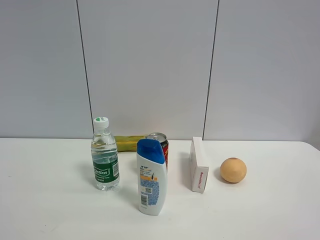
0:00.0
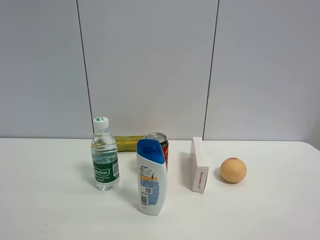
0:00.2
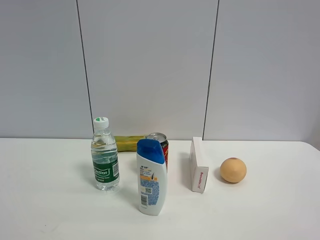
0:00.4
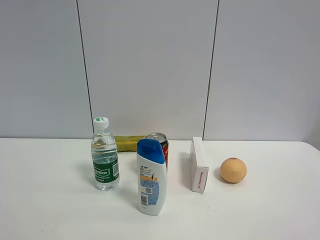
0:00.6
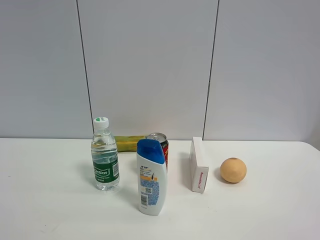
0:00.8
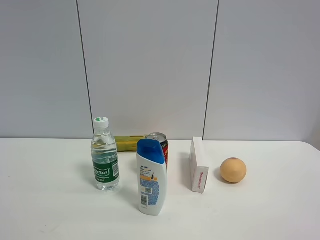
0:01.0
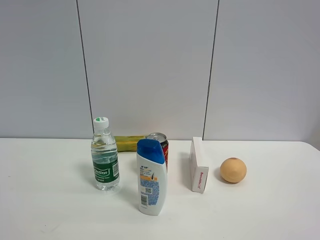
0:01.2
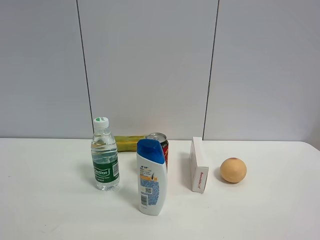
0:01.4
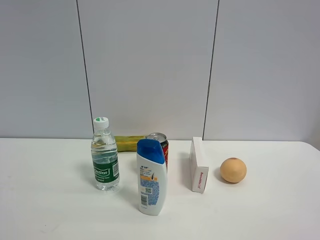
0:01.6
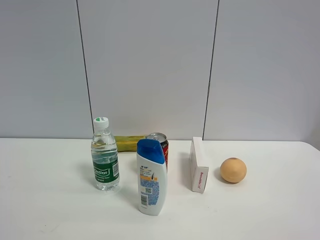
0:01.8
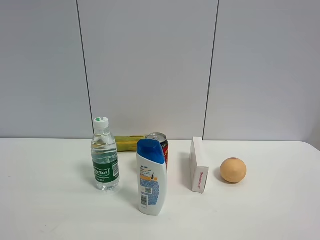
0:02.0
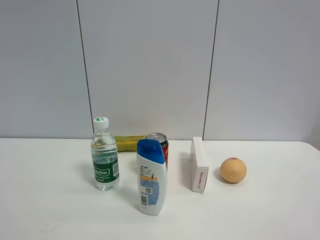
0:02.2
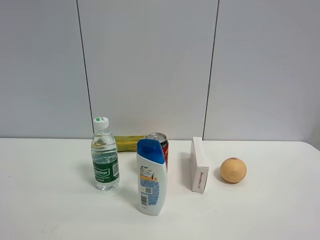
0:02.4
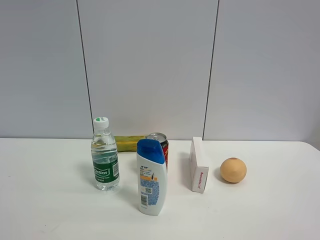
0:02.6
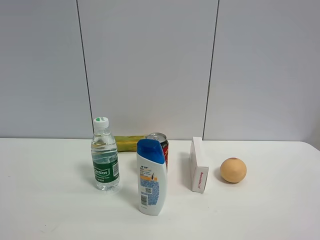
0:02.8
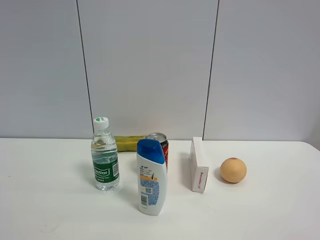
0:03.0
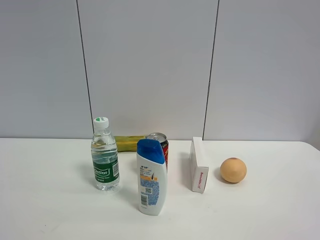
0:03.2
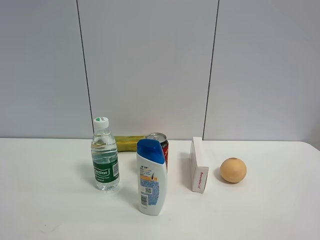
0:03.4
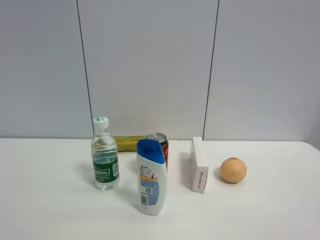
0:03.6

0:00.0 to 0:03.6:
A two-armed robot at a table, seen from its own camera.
Task of the whole recording: the gripper move the object.
0:01.8 to 0:03.6: The two grippers keep their place.

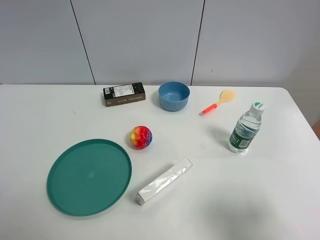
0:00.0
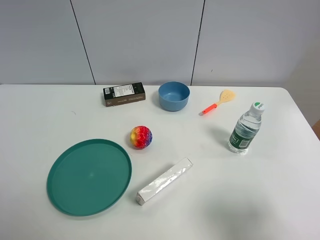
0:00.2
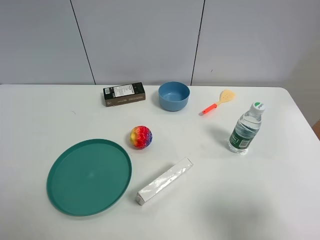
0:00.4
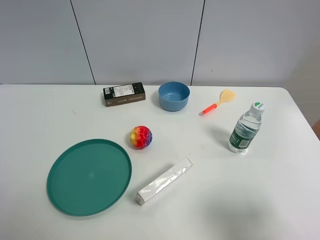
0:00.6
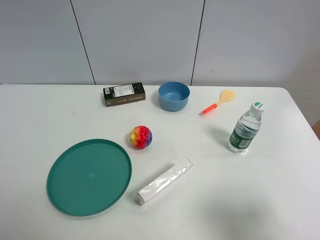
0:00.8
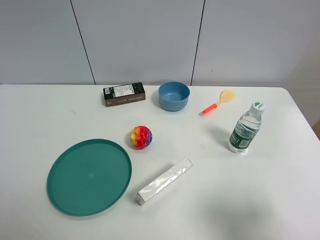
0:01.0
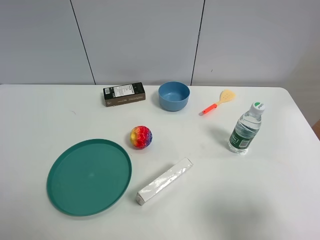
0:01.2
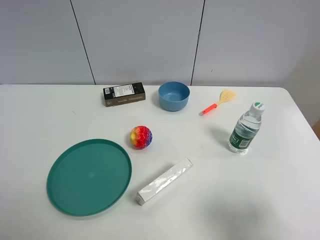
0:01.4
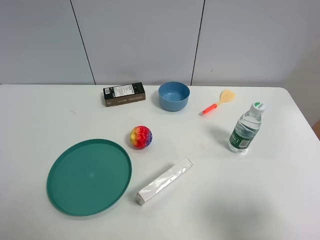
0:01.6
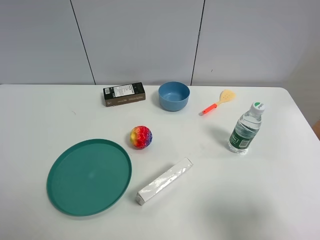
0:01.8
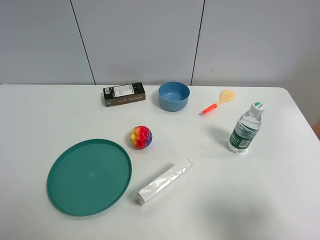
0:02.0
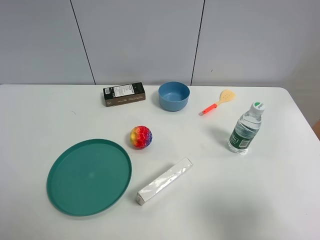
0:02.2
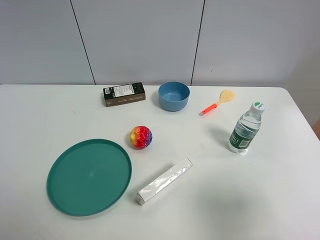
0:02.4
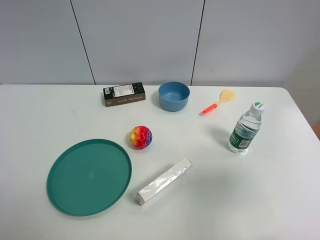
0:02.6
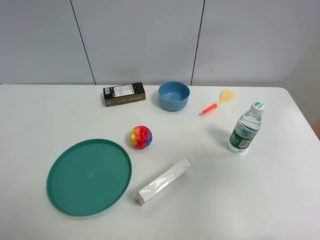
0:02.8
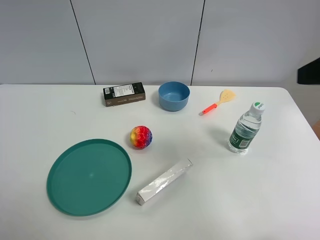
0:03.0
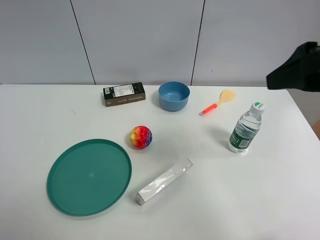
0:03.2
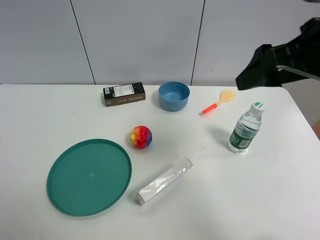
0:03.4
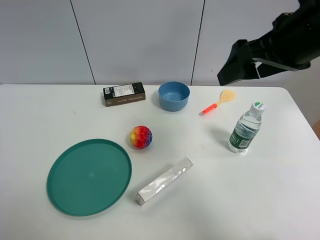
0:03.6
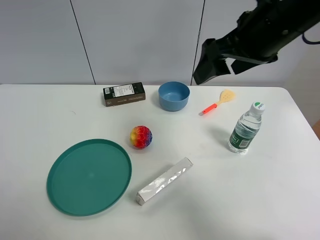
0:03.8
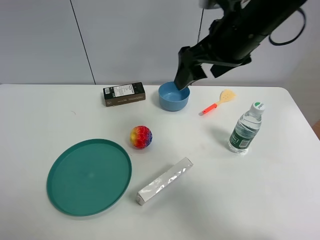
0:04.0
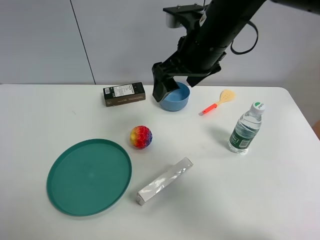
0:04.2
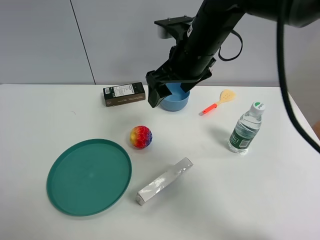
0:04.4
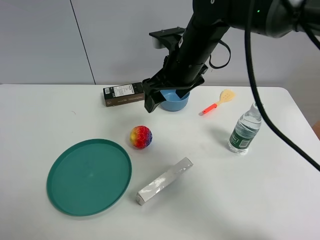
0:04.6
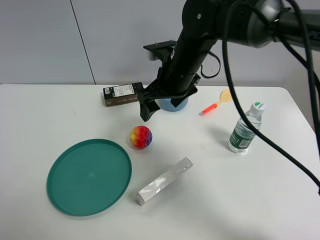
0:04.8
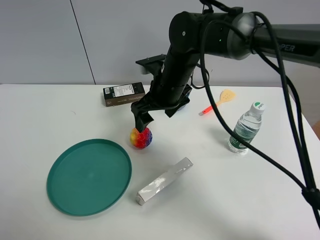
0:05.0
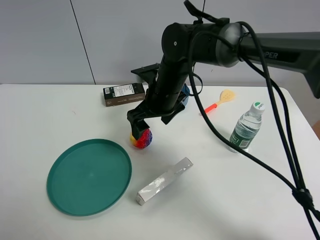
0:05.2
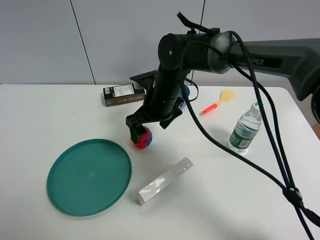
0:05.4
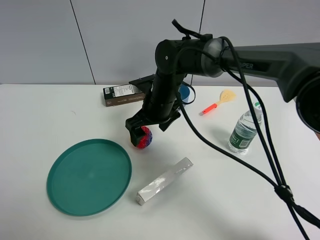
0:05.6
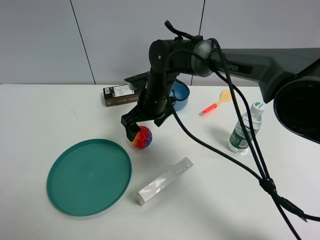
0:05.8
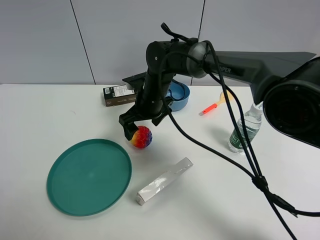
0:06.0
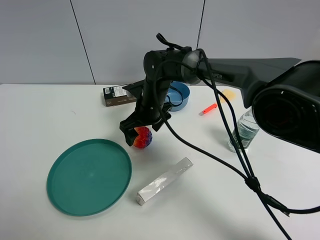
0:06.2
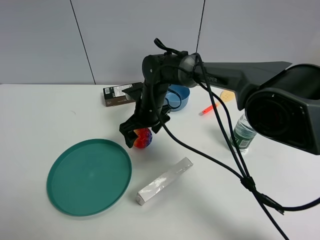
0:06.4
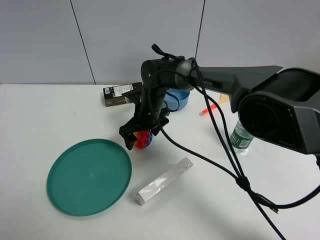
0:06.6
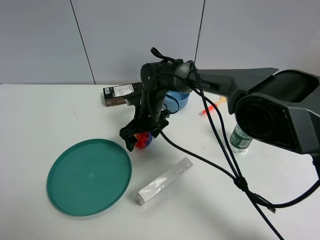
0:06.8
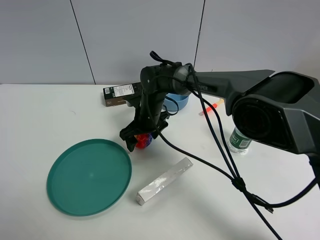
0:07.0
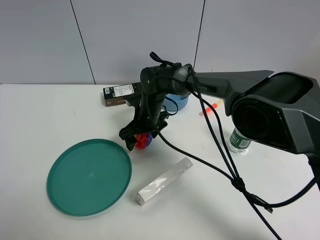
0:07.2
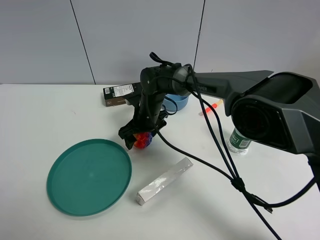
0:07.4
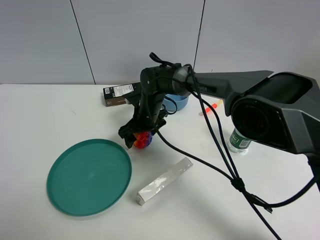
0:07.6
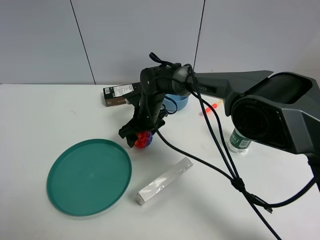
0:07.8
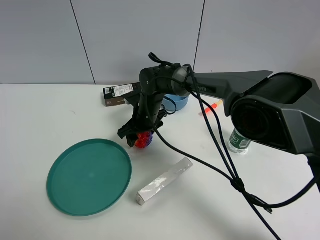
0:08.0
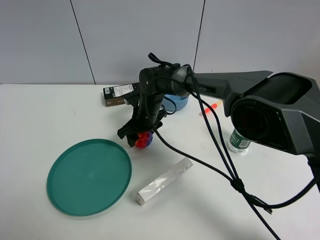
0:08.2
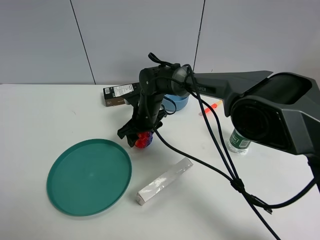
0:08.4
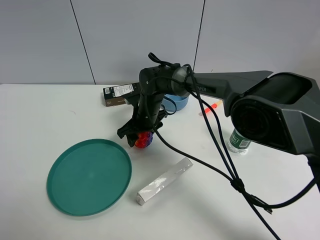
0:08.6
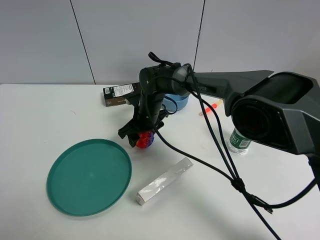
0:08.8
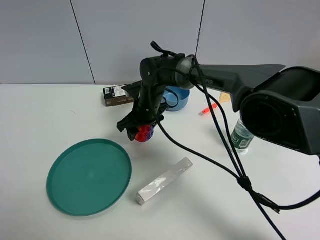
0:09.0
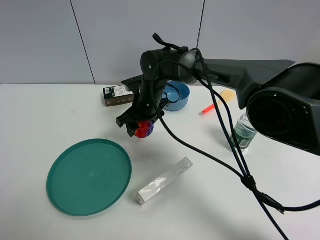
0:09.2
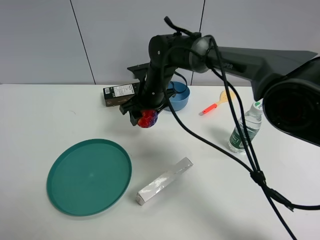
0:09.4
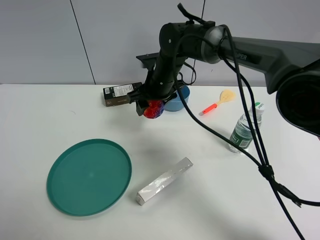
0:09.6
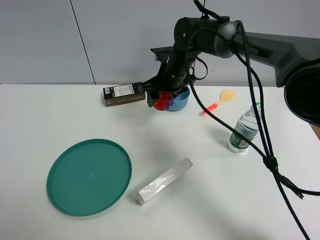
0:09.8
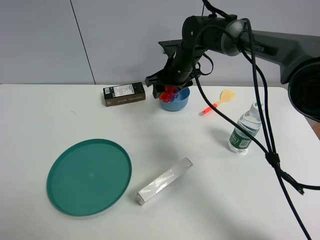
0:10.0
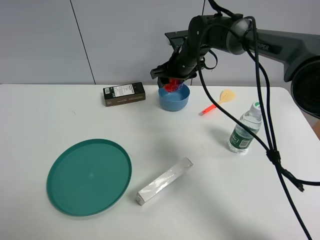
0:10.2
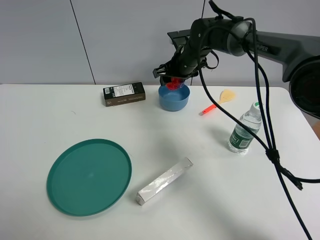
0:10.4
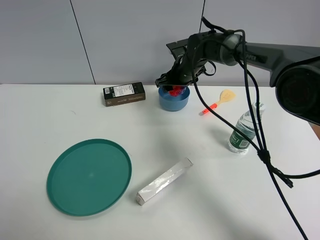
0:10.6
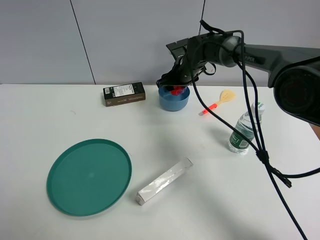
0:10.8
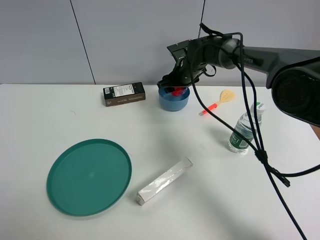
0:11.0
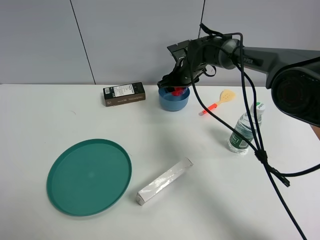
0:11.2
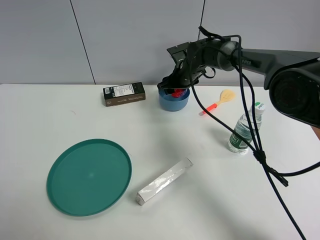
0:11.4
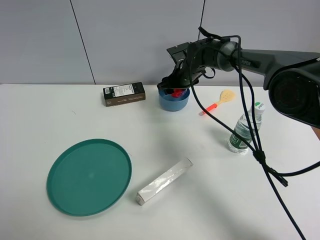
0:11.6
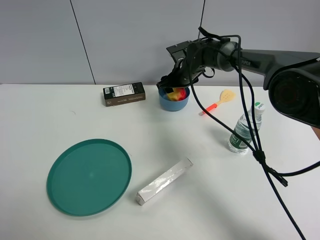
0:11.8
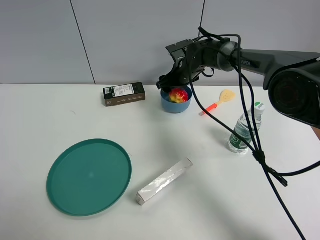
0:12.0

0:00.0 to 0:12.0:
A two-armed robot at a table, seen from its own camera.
Task of the whole recording: the gripper move the object.
Step, 0:00.0 to 0:08.2: Grasp the colorful ball with the right gripper.
0:00.0 to 0:01.6: Both grippers stay about where they are.
0:01.6 to 0:03.0: The right gripper travels forward and upward by about 20 cm.
0:03.0 to 0:04.4: The right gripper is displaced to the left, forward and downward by roughly 25 cm.
0:04.4 to 0:06.0: The right gripper heads downward and to the left, covering some 15 cm.
0:06.0 to 0:07.6: The right gripper is displaced downward by approximately 5 cm.
0:07.6 to 0:09.0: The right gripper closes its fingers.
0:09.0 to 0:10.4: The right gripper is displaced to the right, forward and upward by about 15 cm.
0:10.4 to 0:12.0: The right gripper opens up.

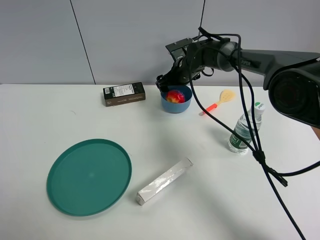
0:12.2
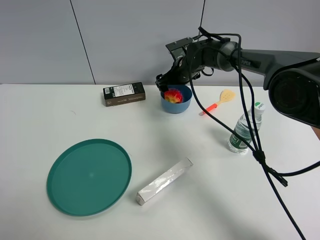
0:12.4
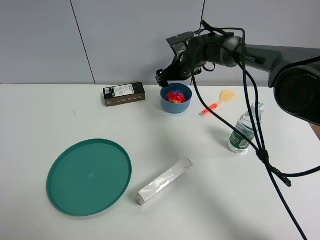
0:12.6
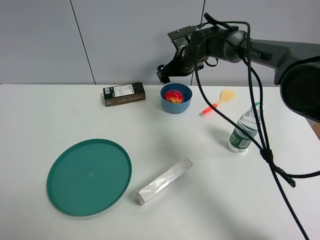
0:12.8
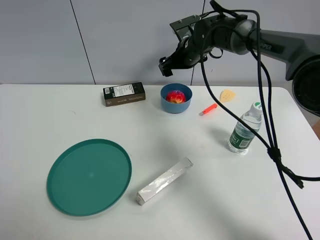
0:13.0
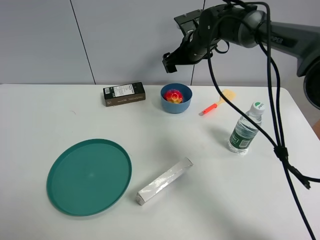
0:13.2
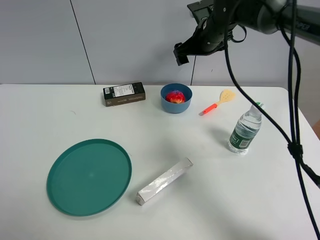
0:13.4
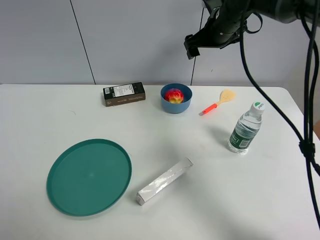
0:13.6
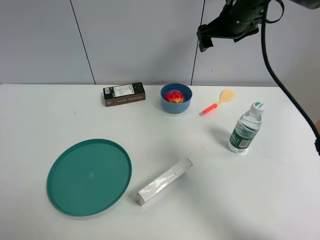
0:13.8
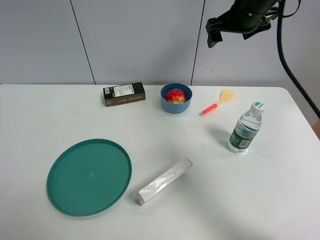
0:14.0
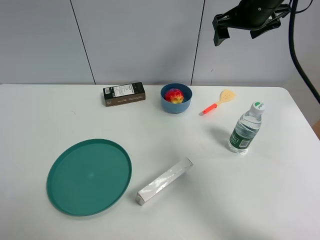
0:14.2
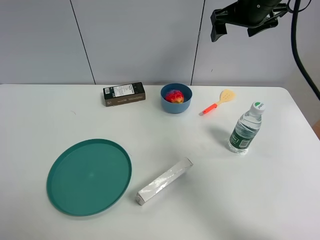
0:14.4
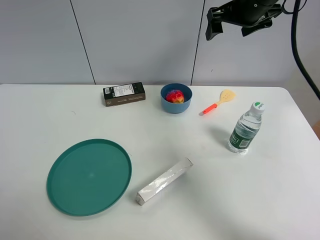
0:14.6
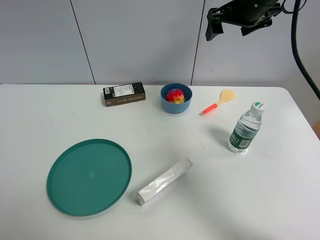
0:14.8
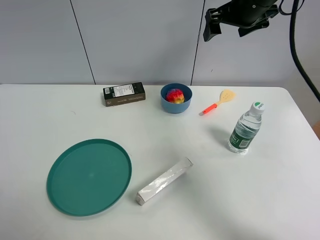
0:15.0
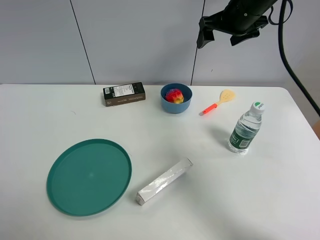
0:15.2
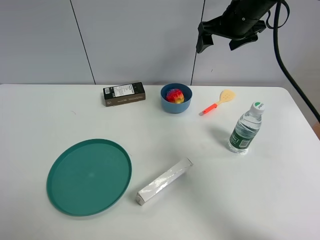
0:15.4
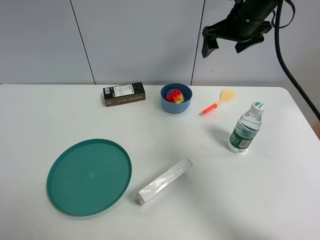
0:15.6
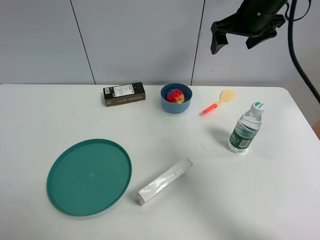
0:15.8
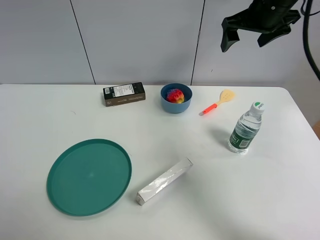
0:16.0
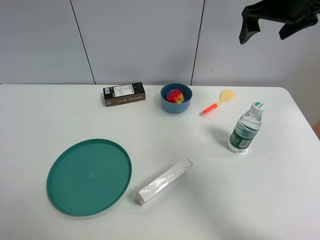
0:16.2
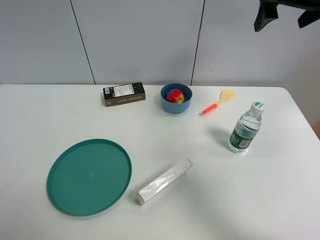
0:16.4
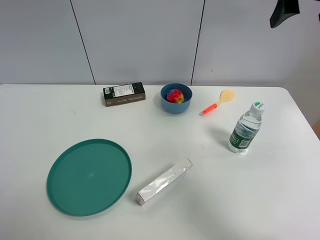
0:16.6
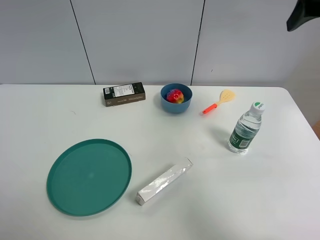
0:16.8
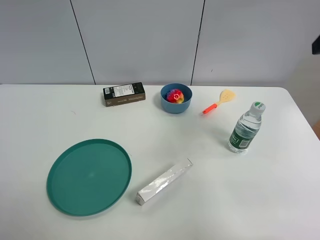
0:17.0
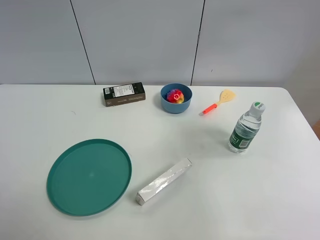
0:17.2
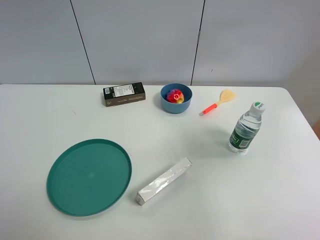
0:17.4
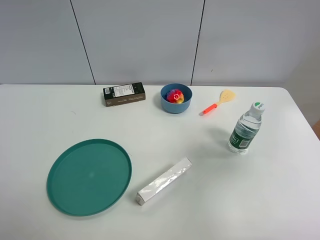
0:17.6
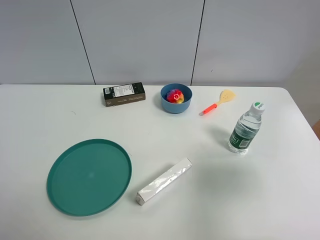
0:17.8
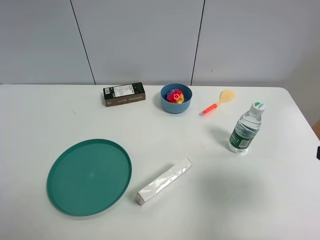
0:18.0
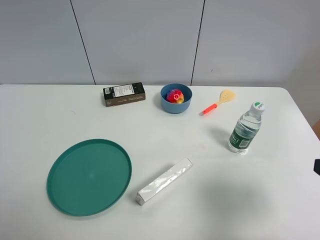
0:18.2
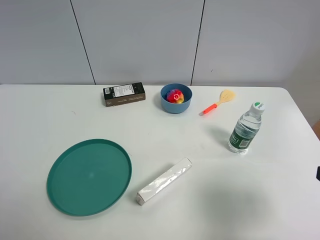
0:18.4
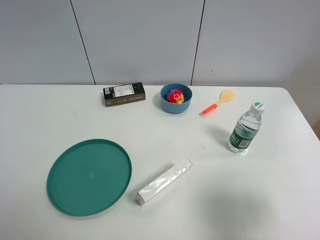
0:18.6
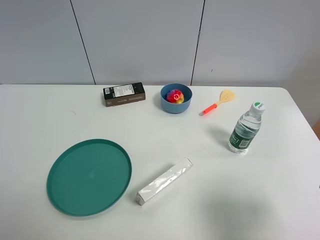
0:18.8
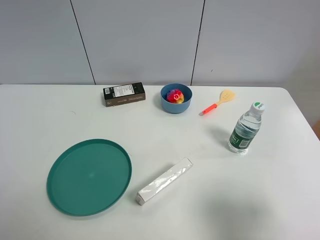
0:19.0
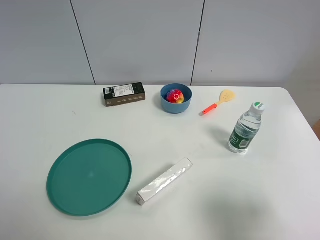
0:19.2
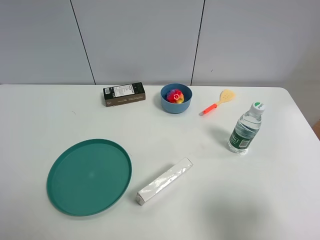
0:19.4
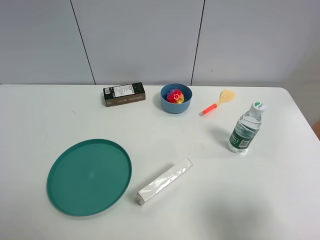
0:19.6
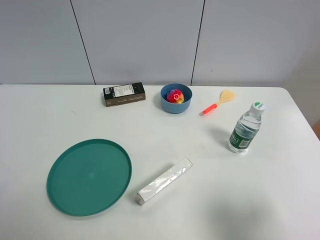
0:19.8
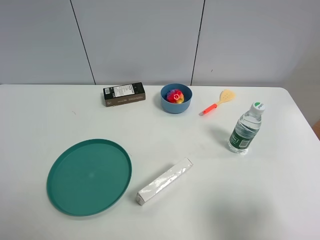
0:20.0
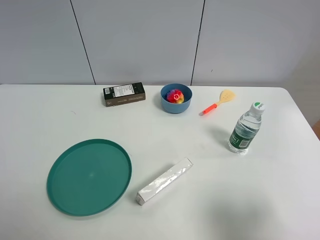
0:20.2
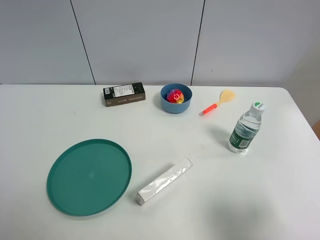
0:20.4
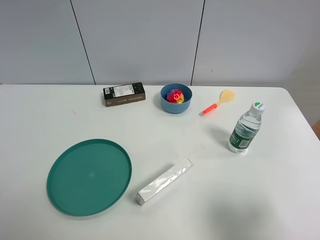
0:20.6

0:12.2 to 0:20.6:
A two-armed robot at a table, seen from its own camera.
Task of the whole recording: the gripper move the object.
0:12.2 to 0:13.6: The right gripper shifts about 15 cm upward and to the right.
0:13.6 to 0:15.0: The right gripper shifts about 5 cm upward.
0:15.0 to 0:16.4: The right gripper goes approximately 10 cm to the right, upward and backward.
0:16.4 to 0:17.8: The right gripper heads backward, covering approximately 25 cm.
0:17.8 to 0:19.2: The right gripper moves backward, about 5 cm.
